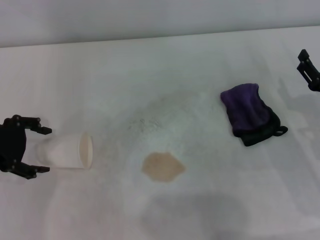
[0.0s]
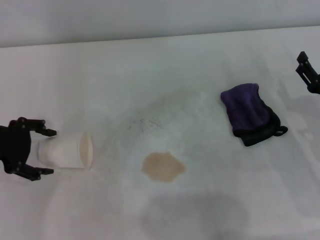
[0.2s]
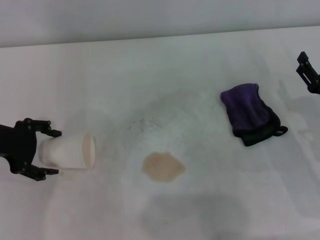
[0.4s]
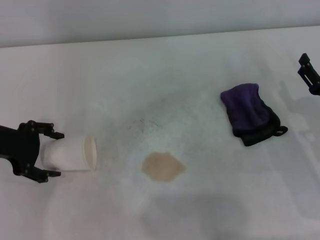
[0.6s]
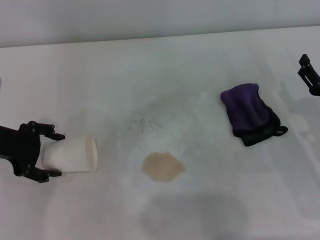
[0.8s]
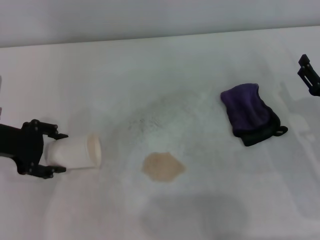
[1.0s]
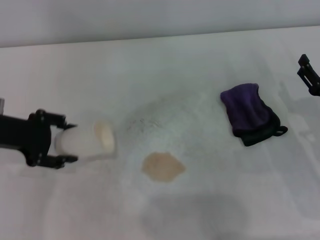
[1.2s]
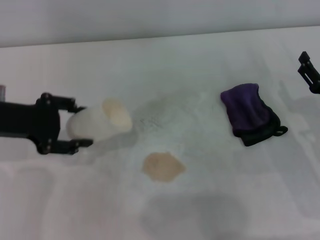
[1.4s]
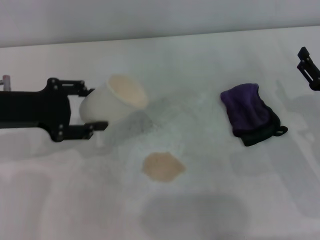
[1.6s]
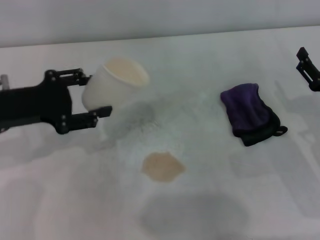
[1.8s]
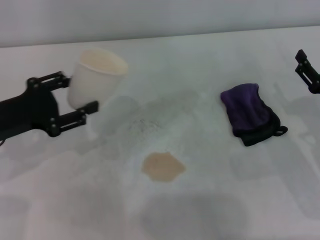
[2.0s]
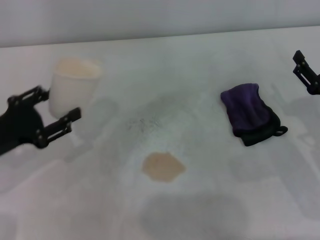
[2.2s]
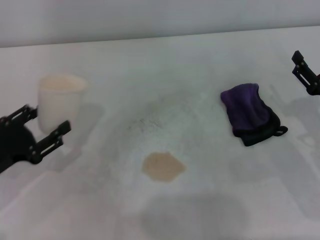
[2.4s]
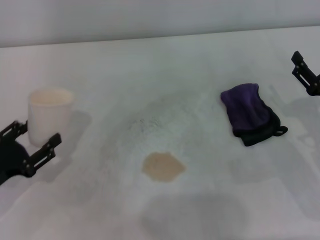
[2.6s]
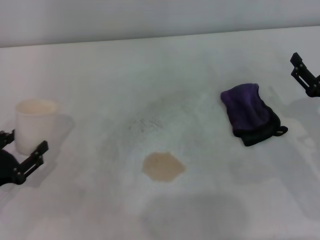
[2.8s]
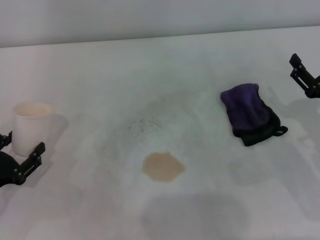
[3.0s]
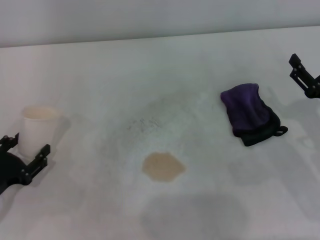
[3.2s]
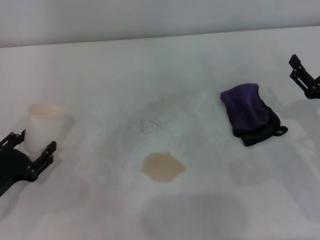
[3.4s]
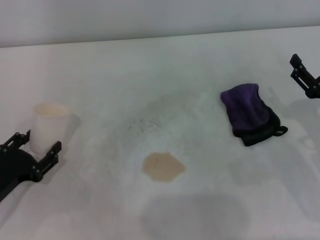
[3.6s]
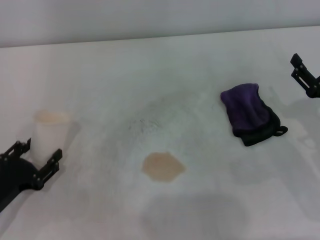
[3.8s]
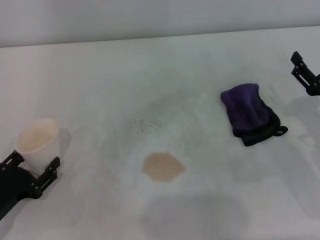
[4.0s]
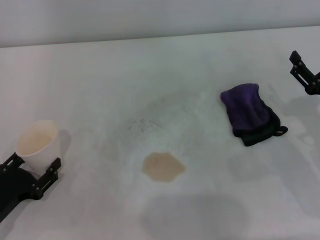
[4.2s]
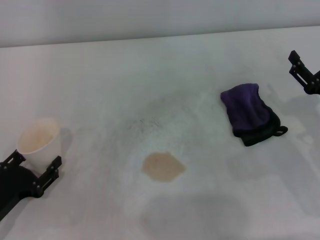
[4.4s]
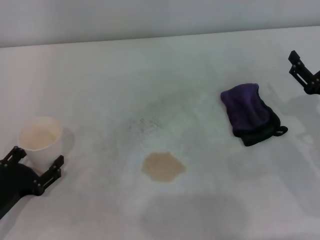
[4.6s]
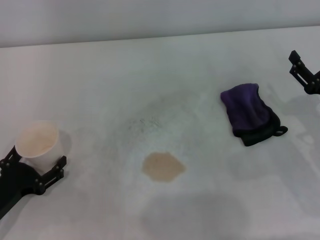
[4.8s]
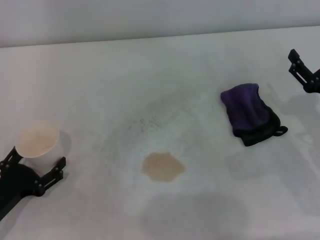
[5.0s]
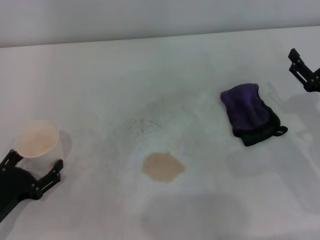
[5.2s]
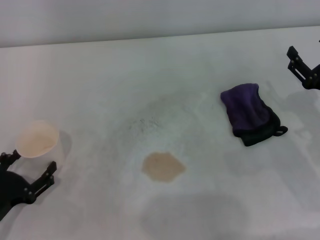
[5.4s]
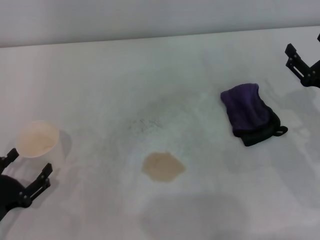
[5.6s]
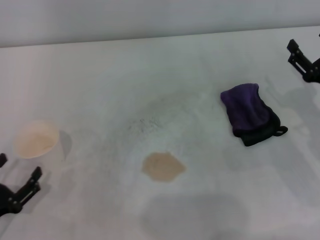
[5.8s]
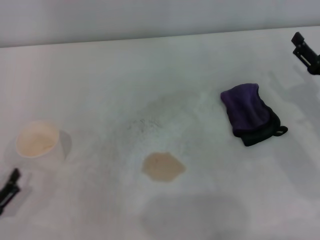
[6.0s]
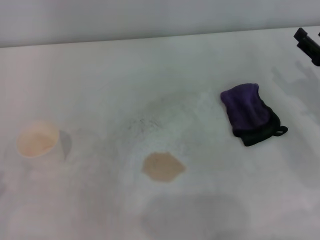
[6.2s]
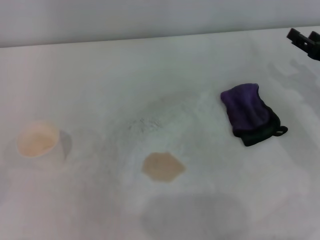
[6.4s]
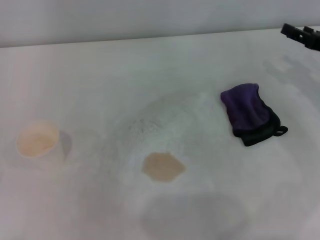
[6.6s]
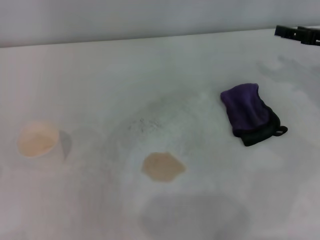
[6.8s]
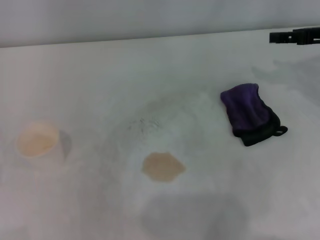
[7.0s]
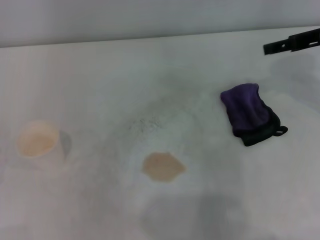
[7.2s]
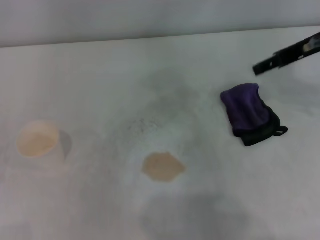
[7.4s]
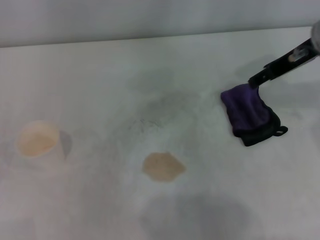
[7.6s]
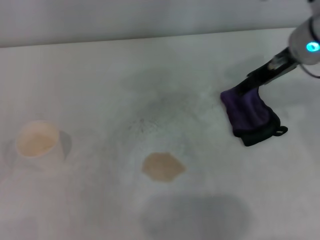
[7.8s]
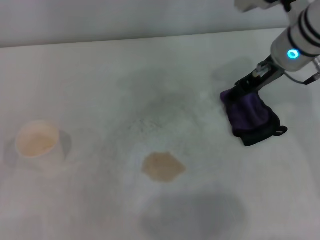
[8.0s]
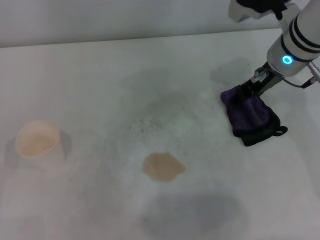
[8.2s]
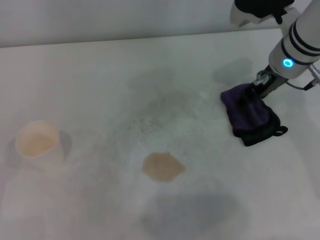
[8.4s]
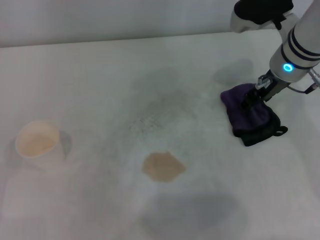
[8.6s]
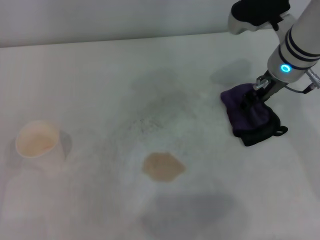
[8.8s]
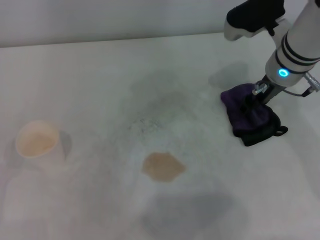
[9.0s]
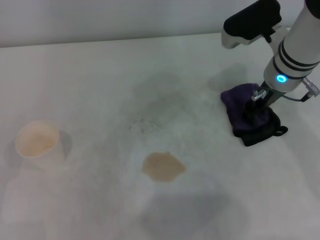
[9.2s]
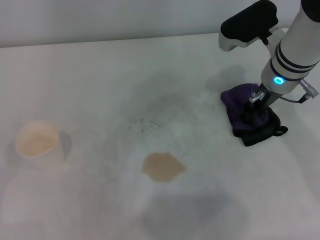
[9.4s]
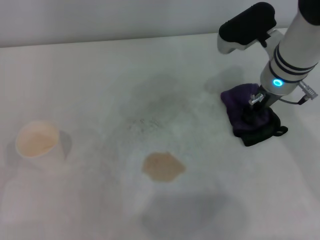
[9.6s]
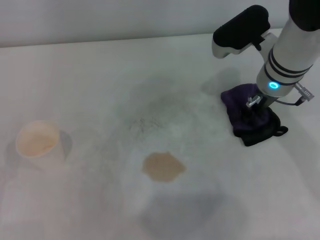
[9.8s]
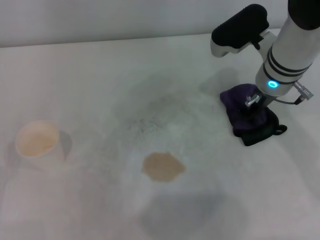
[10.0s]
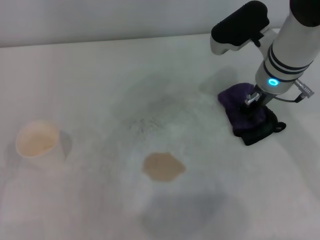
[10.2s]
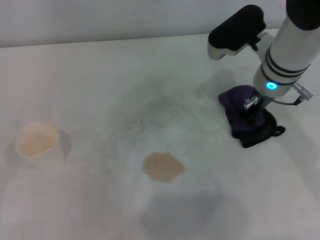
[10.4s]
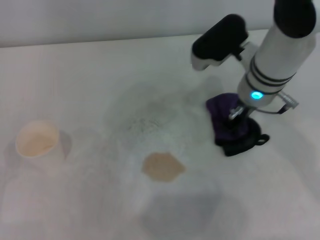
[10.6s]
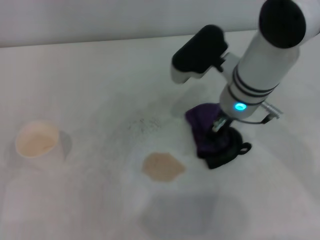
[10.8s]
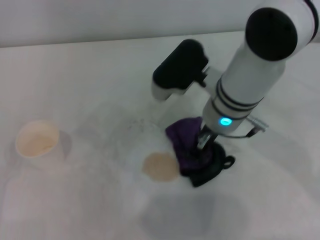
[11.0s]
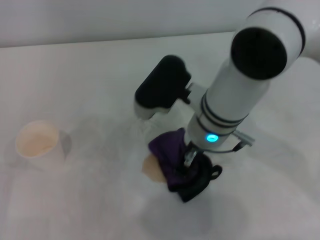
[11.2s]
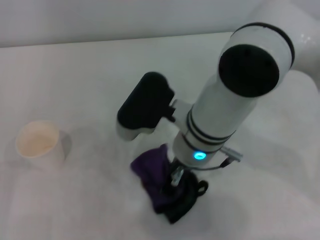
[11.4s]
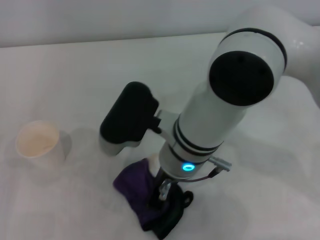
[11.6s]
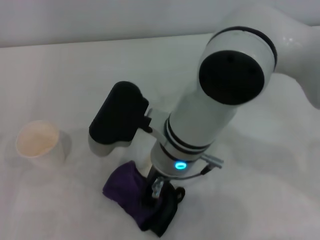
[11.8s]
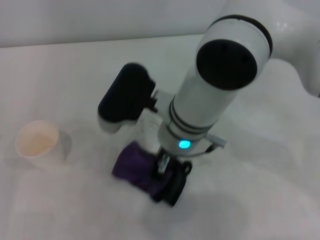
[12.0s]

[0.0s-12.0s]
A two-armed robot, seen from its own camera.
Step, 1.0s to 4.6s: Stand the paper cup upright with the left gripper.
Step, 4.8s to 10.2s: Grasp the rag with the right gripper.
0.0s to 1.6s: The left gripper closes up.
1.6s to 3.0s: The left gripper shifts about 20 cm downward, backward and to the left.
3.0s to 4.4s: The left gripper opens.
4.4s to 6.0s: The left gripper is displaced backward by approximately 5 cm, and opens.
6.0s to 7.6s: The left gripper travels to the left by roughly 5 cm. The right gripper goes some 20 cm upward, forward and to the left.
7.6s to 9.0s: The right gripper goes about 5 cm downward.
9.0s to 10.4s: The right gripper closes.
10.4s to 12.0s: The right gripper goes roughly 15 cm to the left and backward.

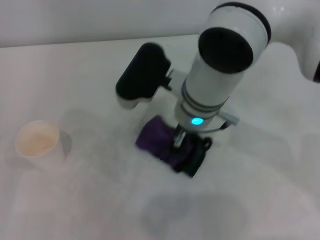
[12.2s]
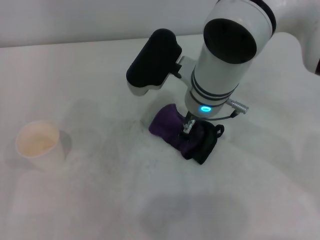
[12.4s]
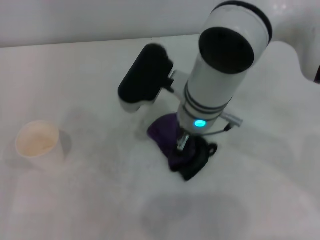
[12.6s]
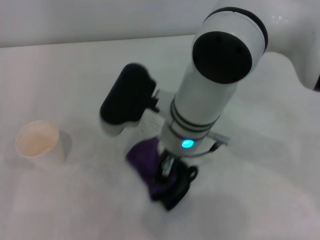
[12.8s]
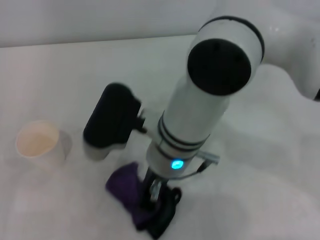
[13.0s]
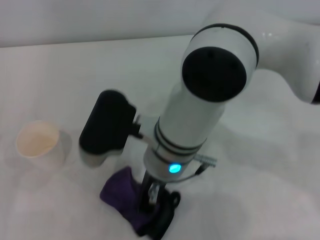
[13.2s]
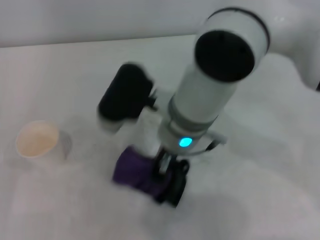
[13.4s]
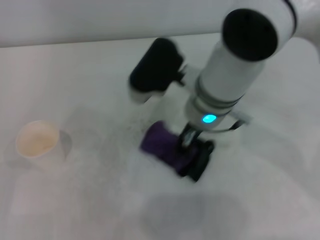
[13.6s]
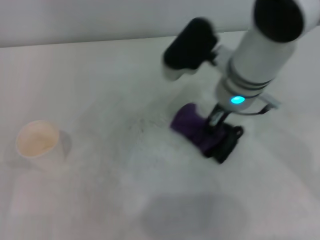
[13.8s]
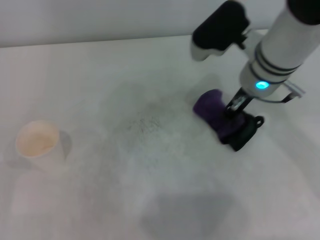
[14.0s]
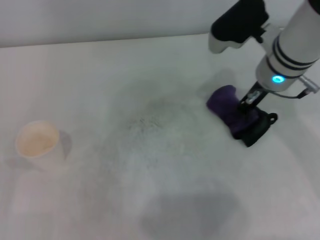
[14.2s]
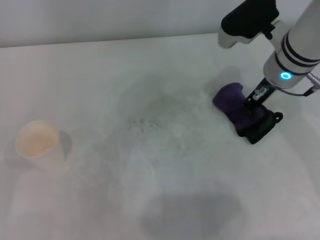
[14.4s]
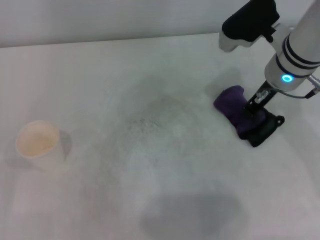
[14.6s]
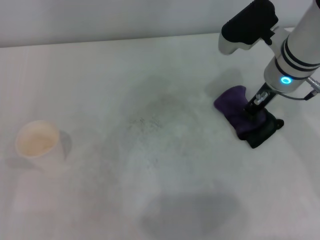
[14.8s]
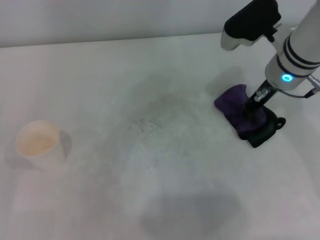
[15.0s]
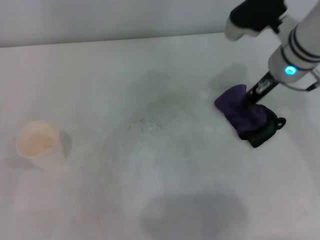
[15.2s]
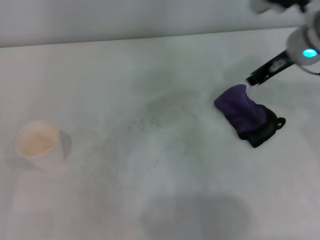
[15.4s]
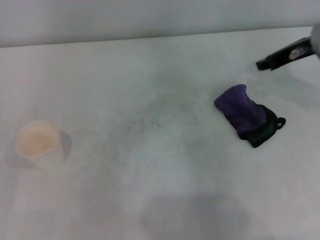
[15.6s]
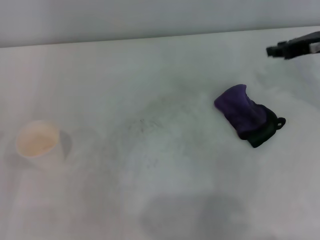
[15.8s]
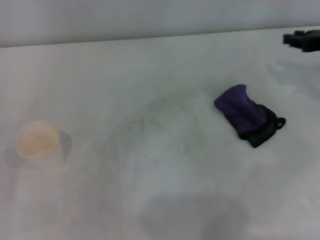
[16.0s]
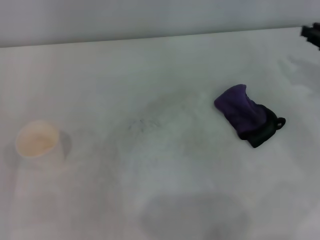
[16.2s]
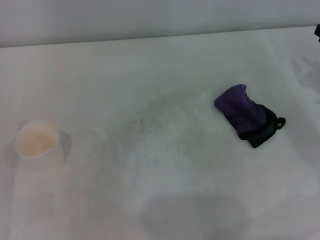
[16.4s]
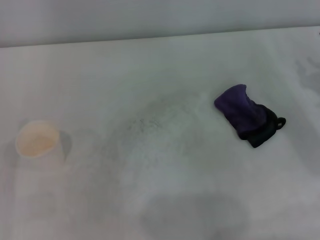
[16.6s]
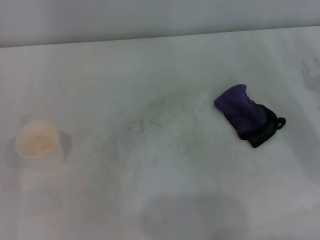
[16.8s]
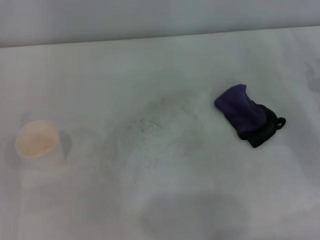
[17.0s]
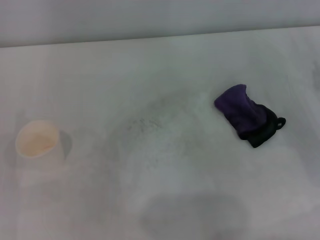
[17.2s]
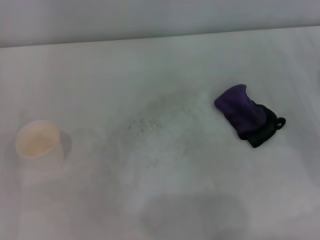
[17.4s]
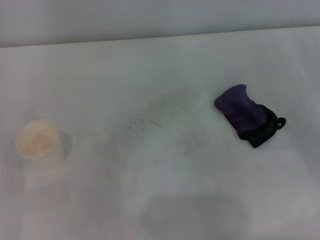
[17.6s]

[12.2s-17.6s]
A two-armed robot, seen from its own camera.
Step, 12.2s to 14.2s: Wipe the stains off the table with the right gripper.
Step, 14.4s to 15.0s: Place the rag on the table with the right gripper.
13.6s to 15.0s: The right gripper shifts roughly 15 cm to the right.
15.0s to 16.2s: The right gripper shifts roughly 20 cm to the right.
